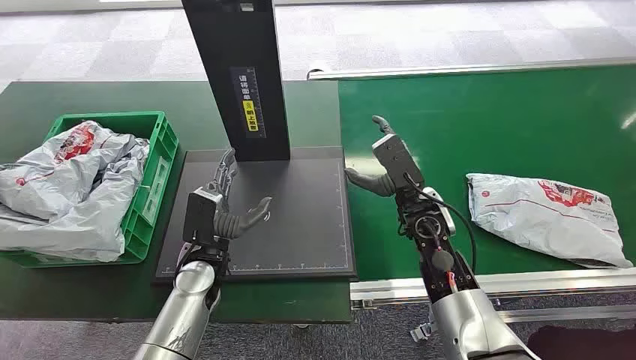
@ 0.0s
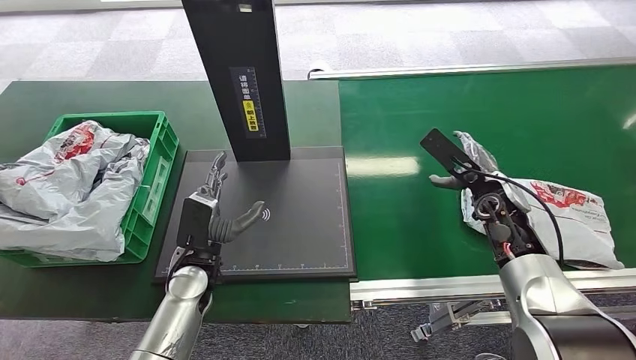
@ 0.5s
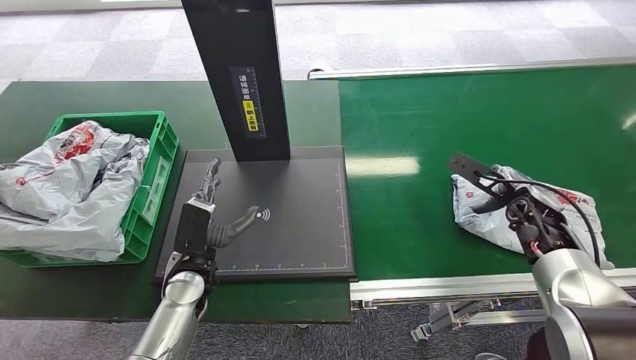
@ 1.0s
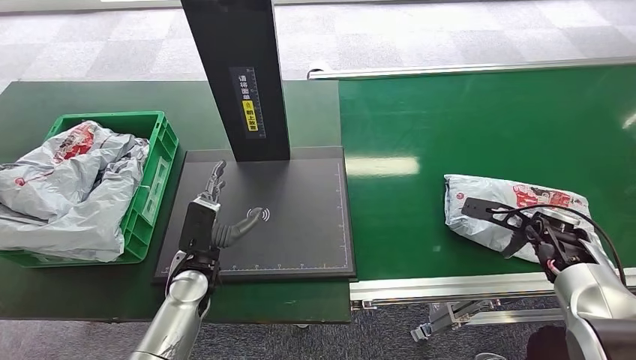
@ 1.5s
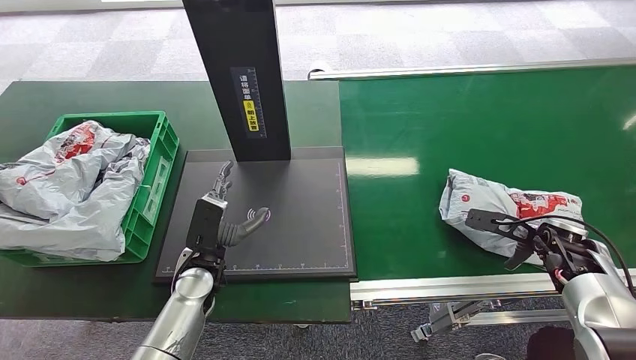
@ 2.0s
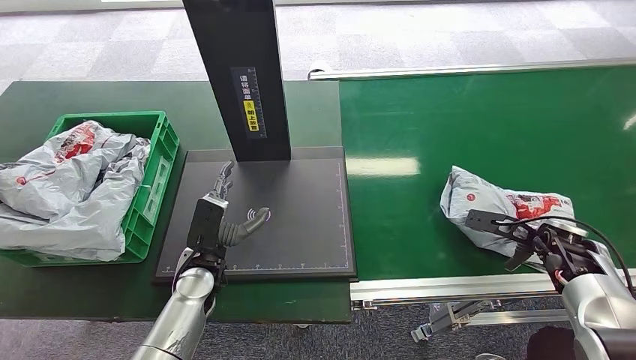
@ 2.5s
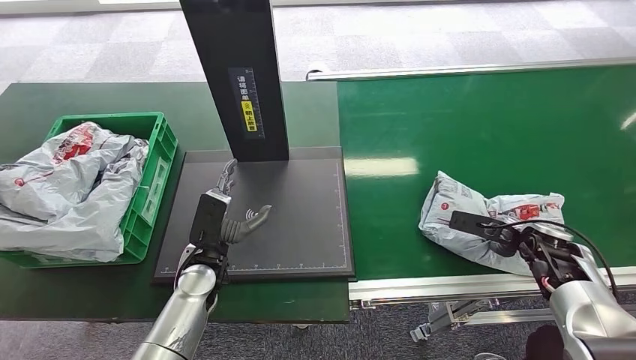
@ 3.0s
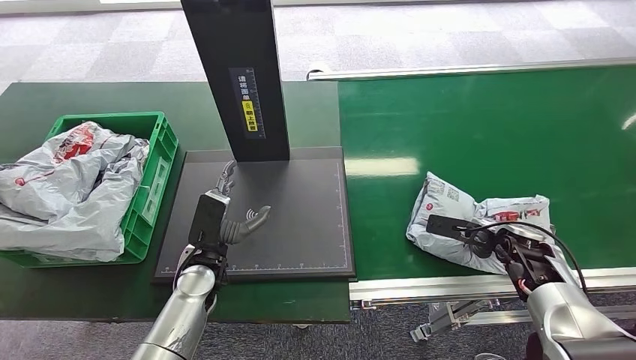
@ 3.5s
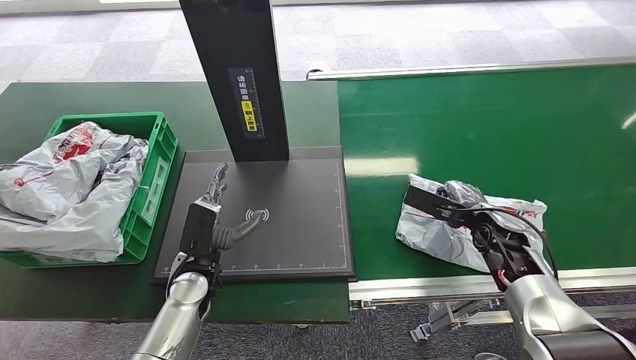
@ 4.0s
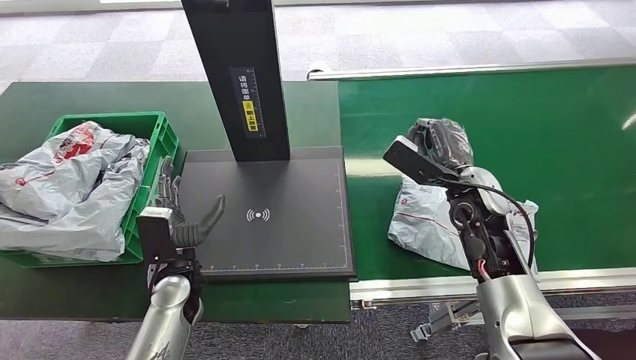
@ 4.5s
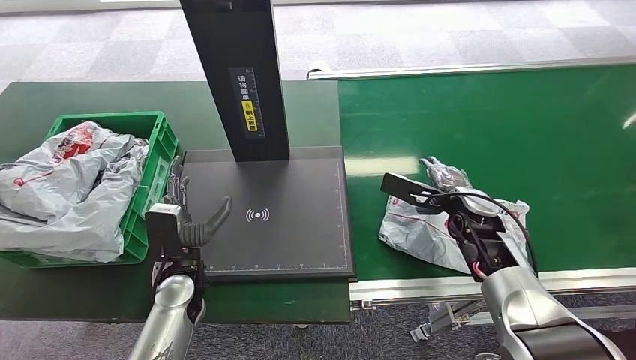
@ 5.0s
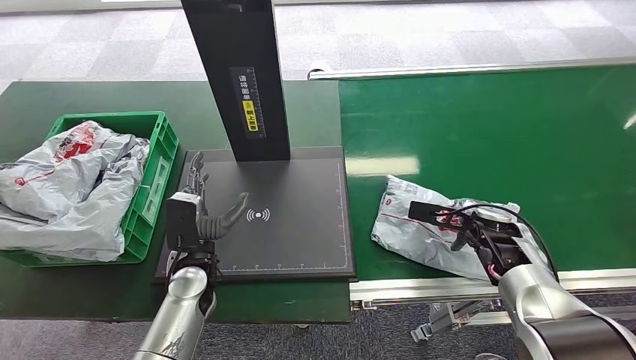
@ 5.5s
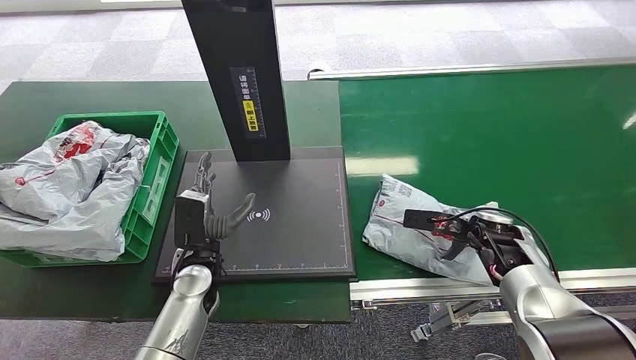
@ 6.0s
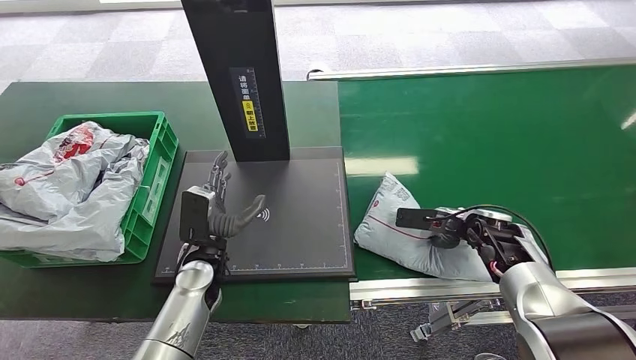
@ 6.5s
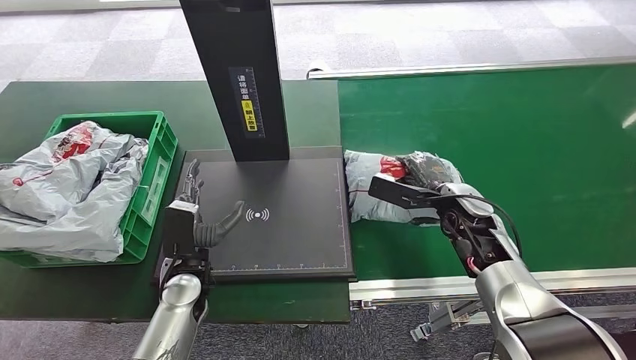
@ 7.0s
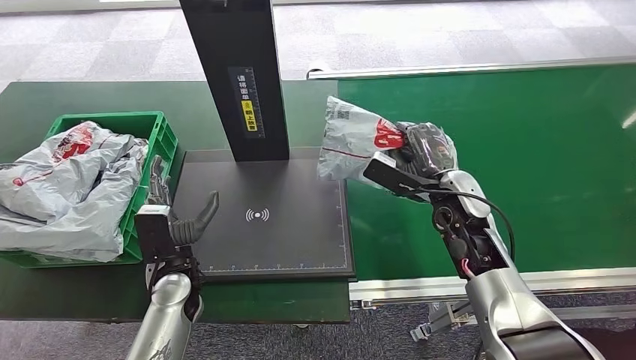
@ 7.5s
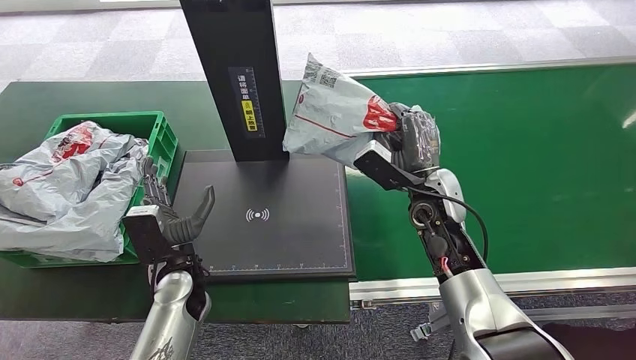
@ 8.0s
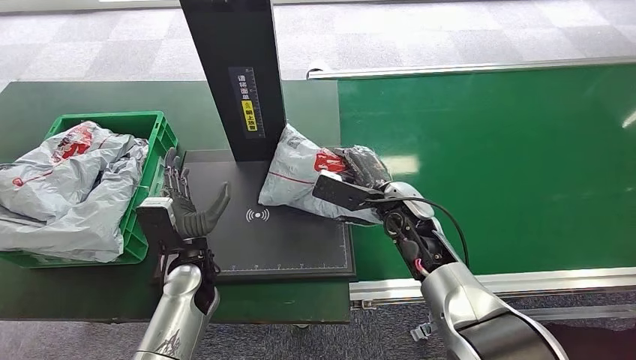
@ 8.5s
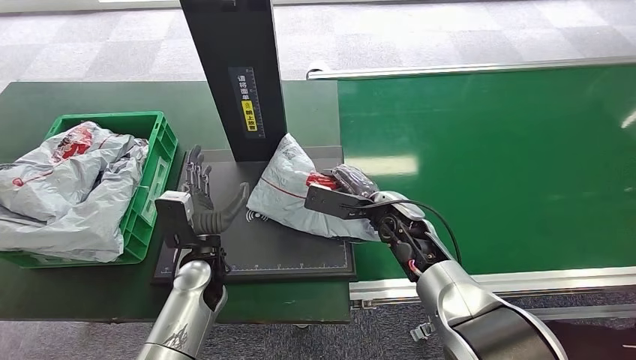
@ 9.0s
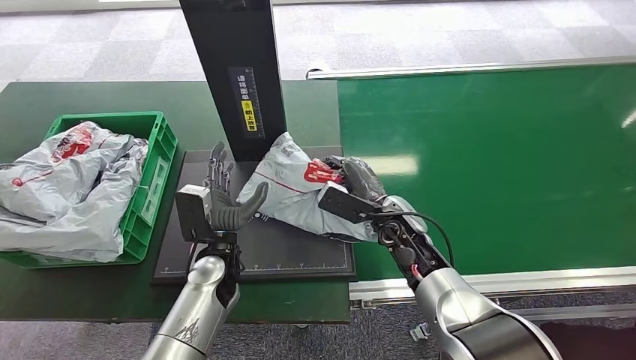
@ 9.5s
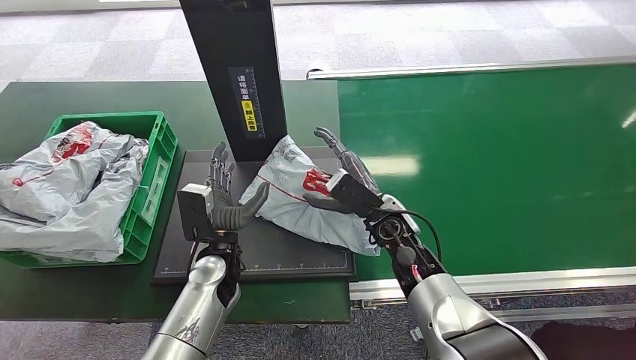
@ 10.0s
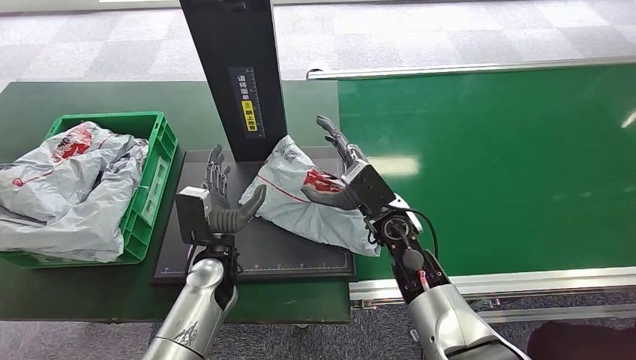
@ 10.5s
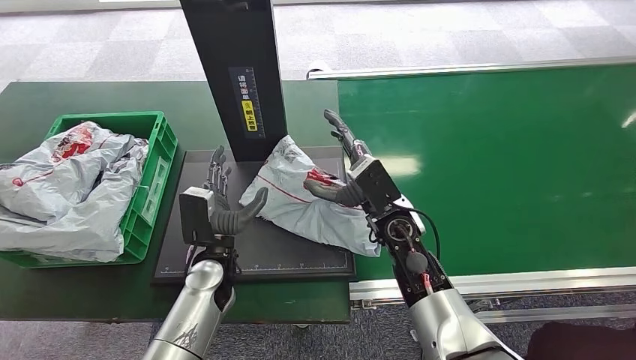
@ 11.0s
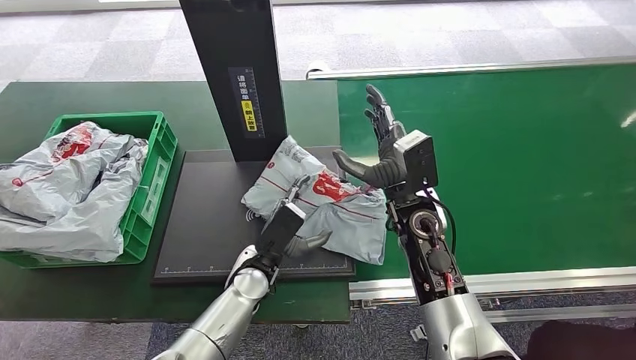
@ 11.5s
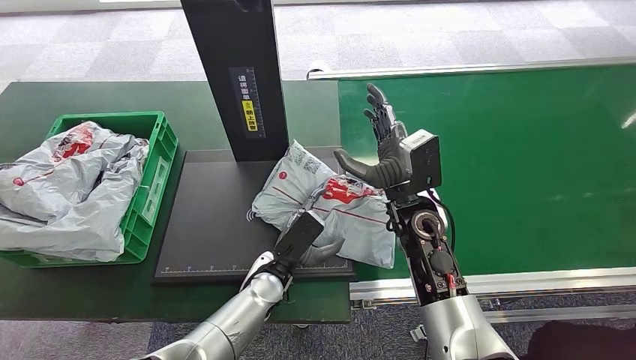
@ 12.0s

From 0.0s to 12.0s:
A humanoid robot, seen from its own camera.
Step, from 0.0s to 7.5s: Pick up the package from the conveyor belt.
Step, from 9.5s to 11.5s: Place the package onto the inbound machine.
From 2.0s to 4.0s: The right hand moves to the left, roughly 10 cm.
From 4.0s to 6.0s: The right hand travels upward and back again, about 10 cm each way.
From 10.0s to 12.0s: The left hand heads to the right, covering about 5 cm; the right hand heads upward, covering about 5 cm.

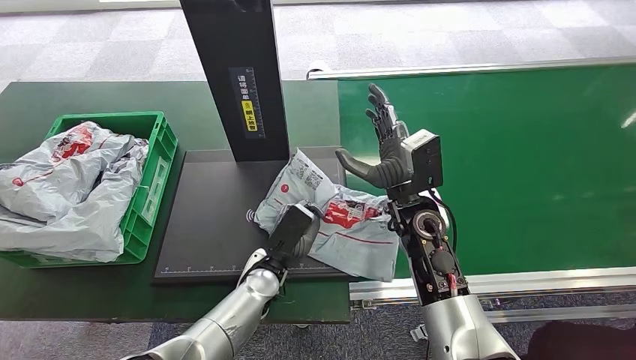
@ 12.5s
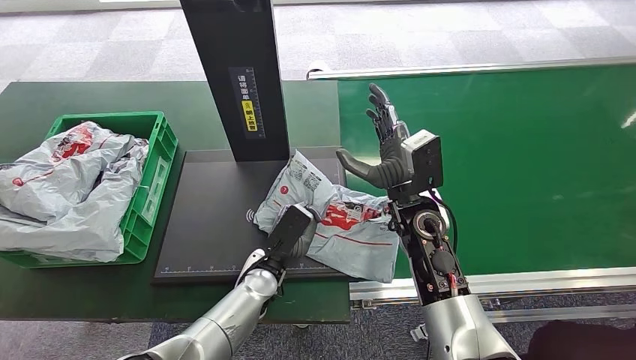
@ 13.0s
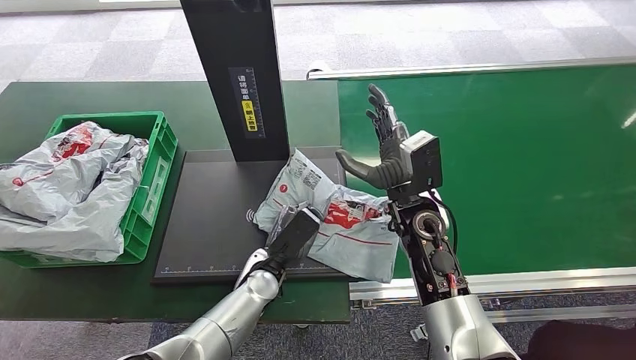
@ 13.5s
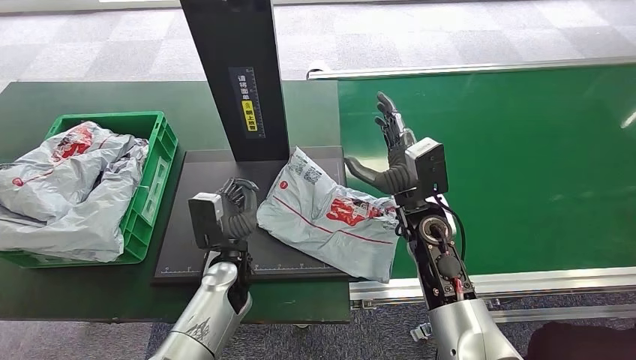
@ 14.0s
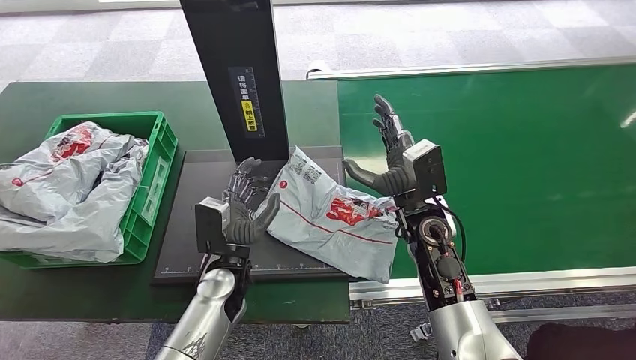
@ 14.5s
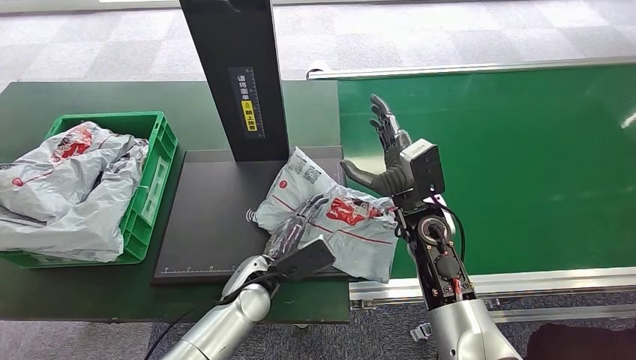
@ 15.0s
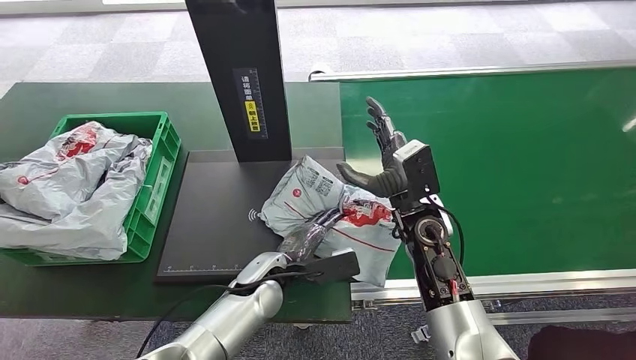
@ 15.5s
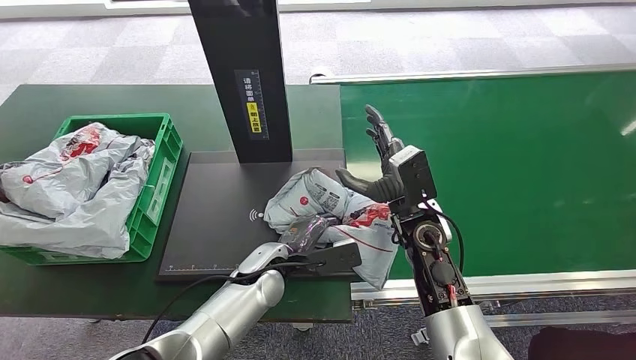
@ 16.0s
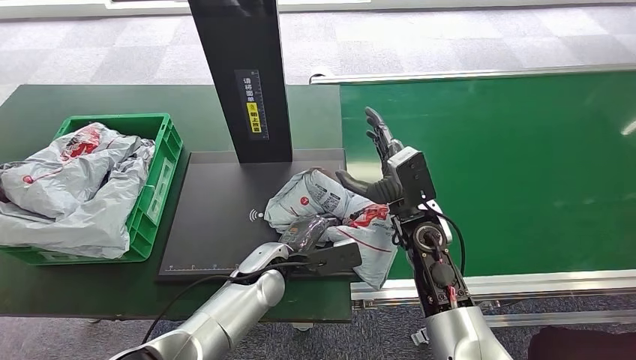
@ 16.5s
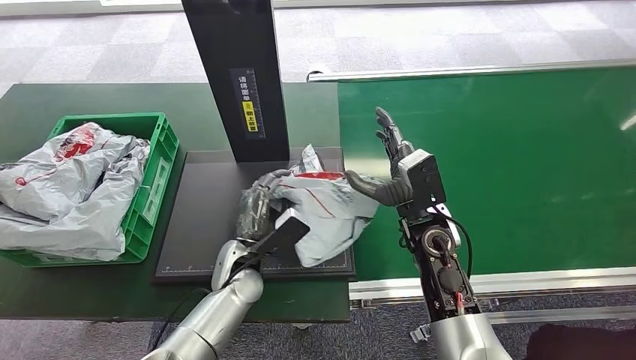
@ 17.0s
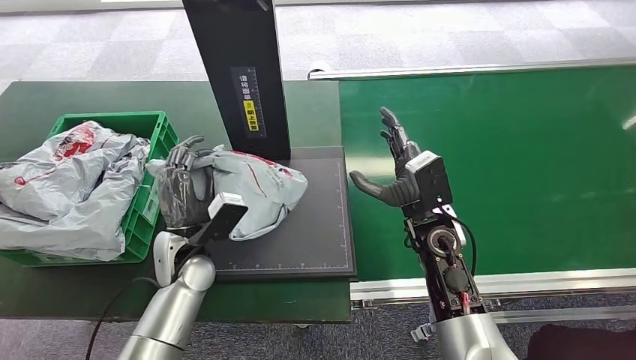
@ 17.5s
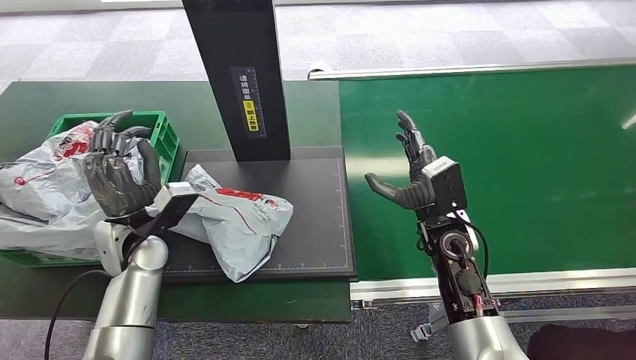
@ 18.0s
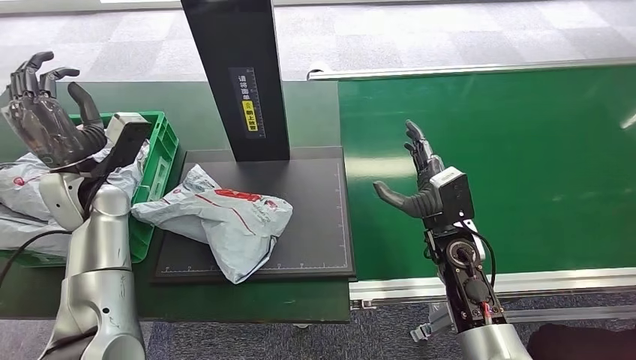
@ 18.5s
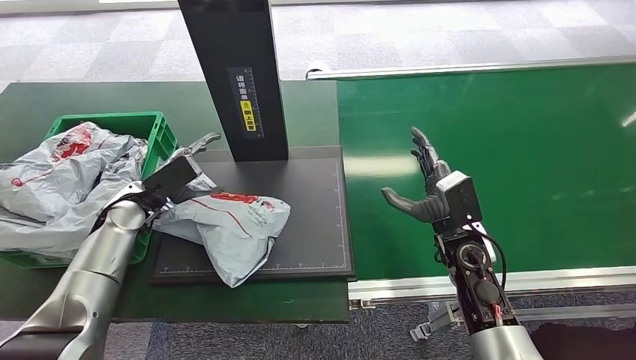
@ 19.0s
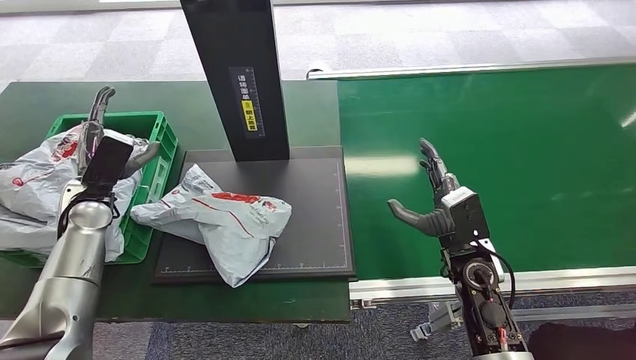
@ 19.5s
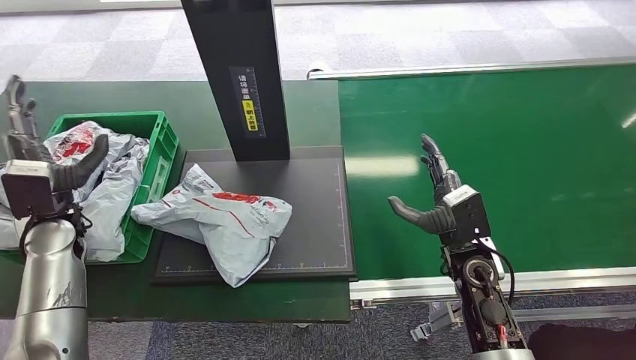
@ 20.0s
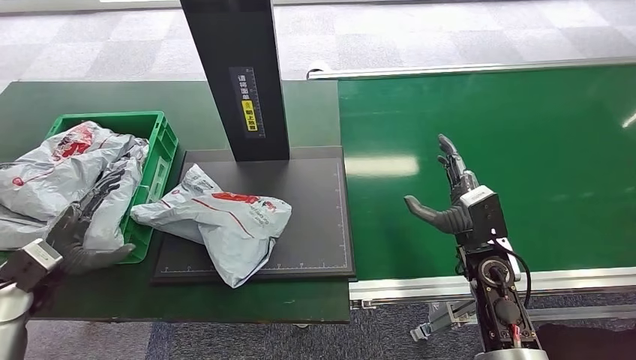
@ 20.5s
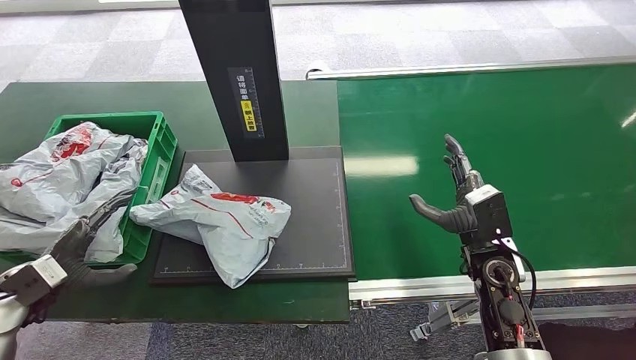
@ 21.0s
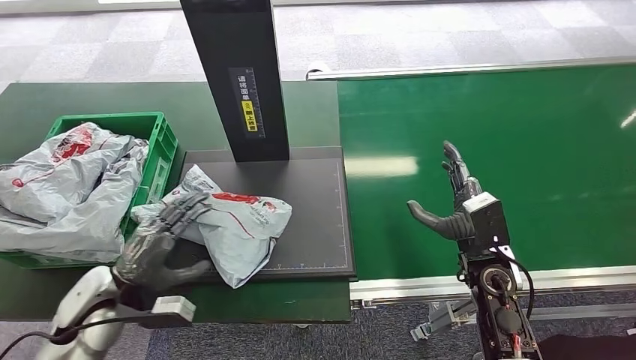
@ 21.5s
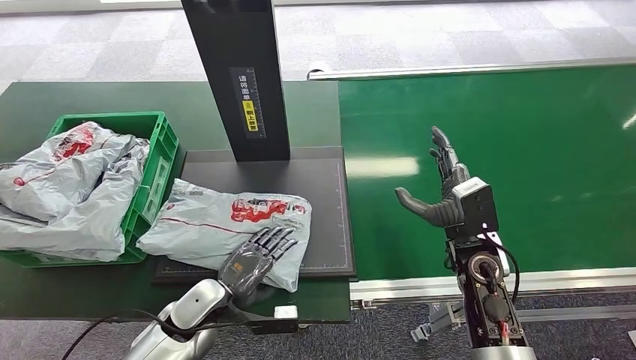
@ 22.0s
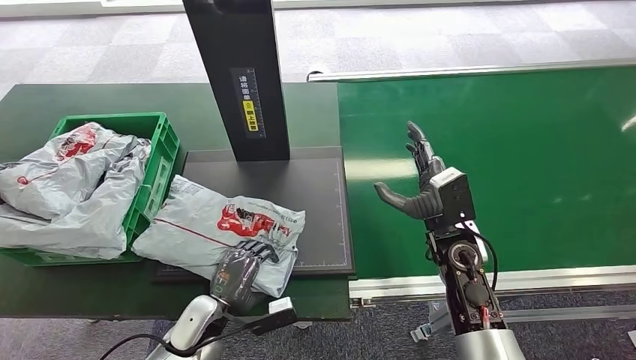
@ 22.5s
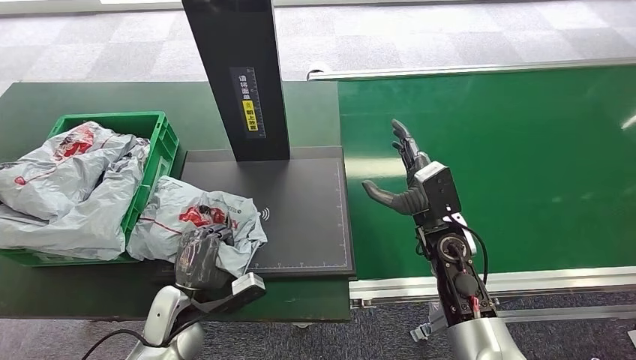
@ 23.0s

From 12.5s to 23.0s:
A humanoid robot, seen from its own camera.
From 12.5s to 14.5s: The left hand moves approximately 5 cm.
From 19.0s to 21.0s: The left hand moves backward and to the left, about 20 cm.
